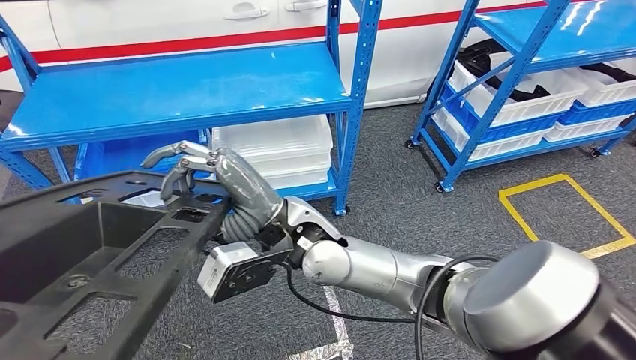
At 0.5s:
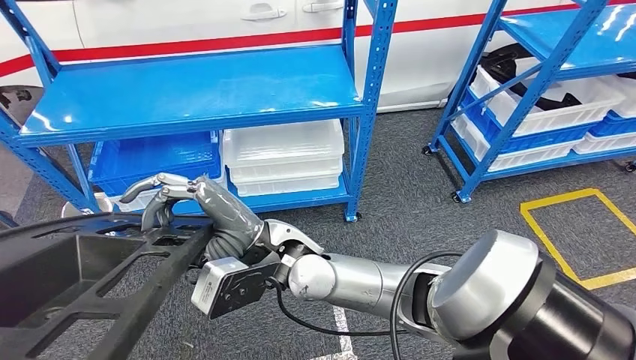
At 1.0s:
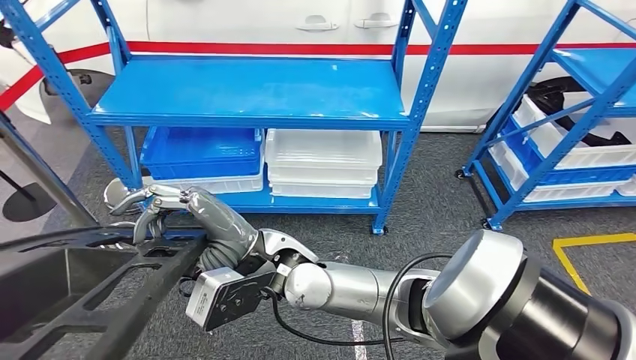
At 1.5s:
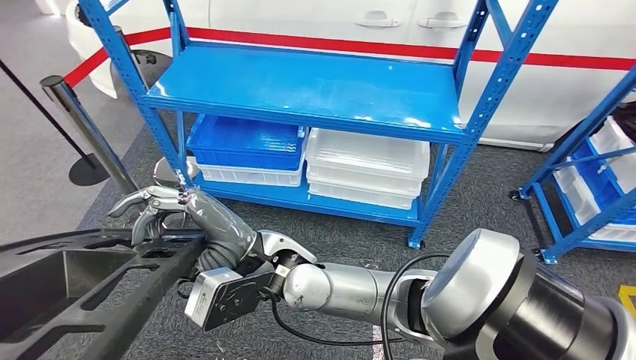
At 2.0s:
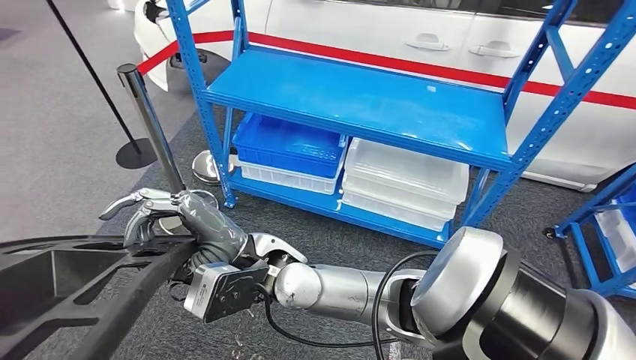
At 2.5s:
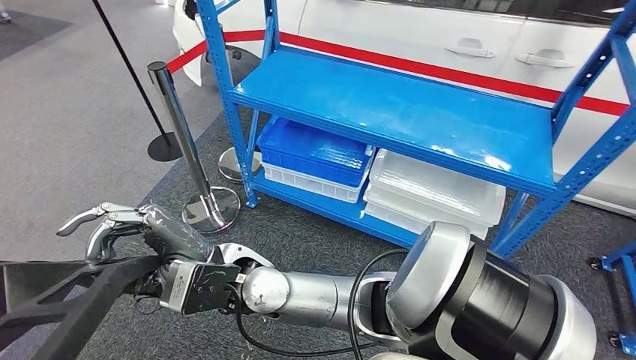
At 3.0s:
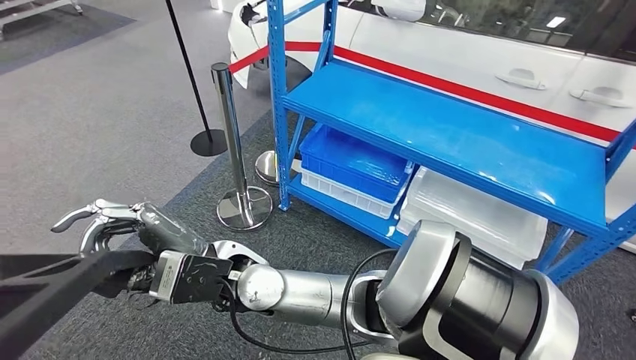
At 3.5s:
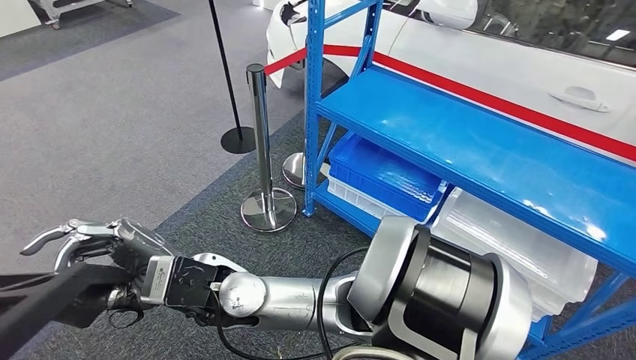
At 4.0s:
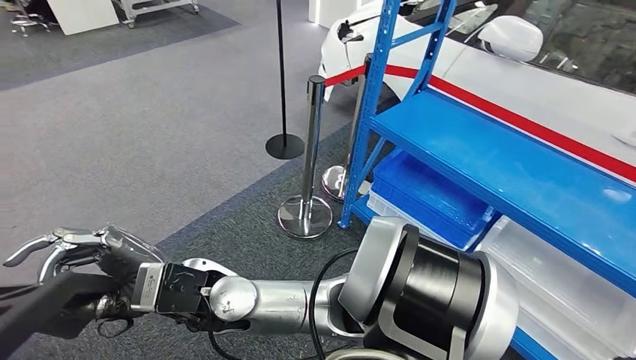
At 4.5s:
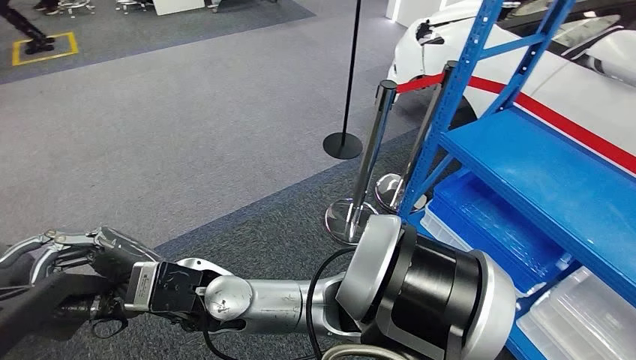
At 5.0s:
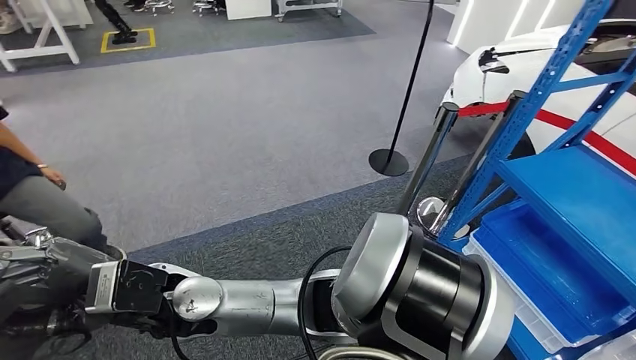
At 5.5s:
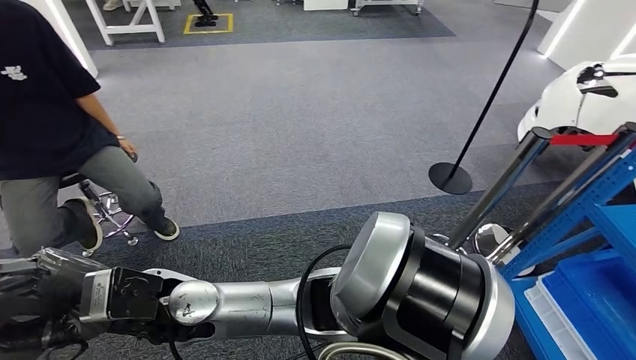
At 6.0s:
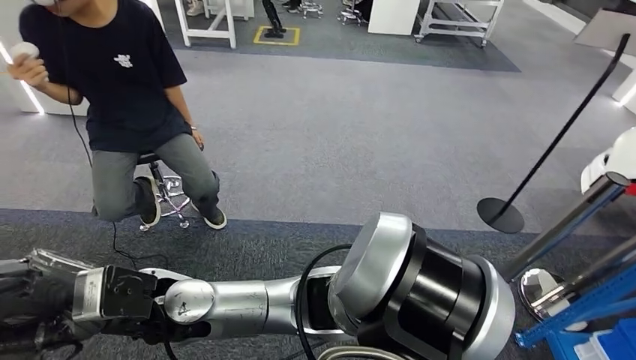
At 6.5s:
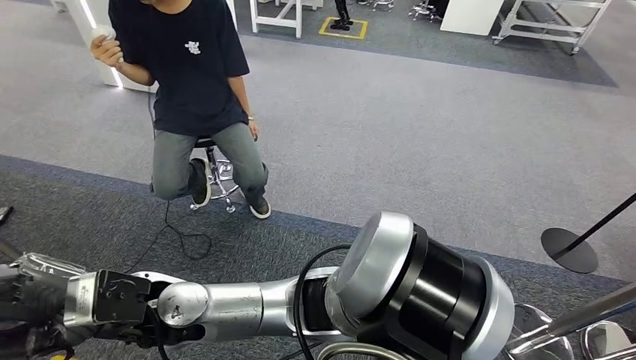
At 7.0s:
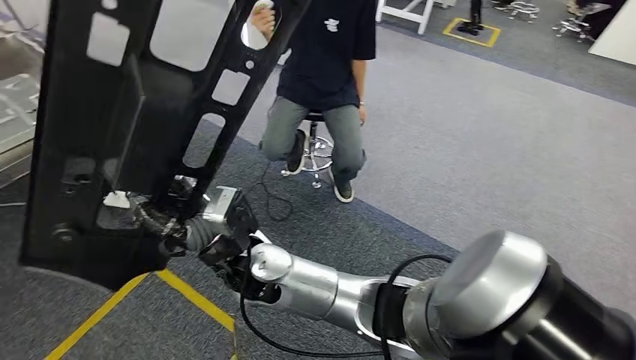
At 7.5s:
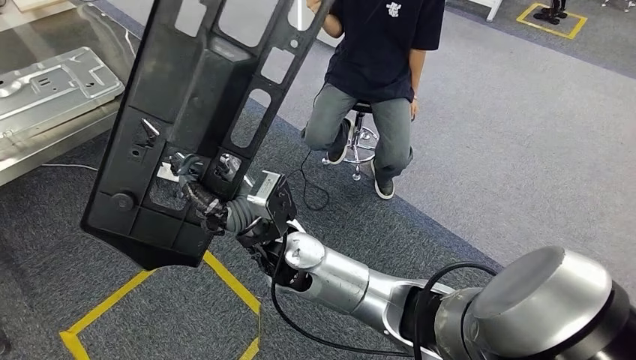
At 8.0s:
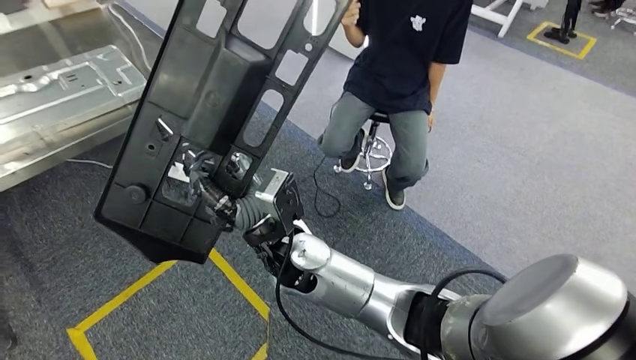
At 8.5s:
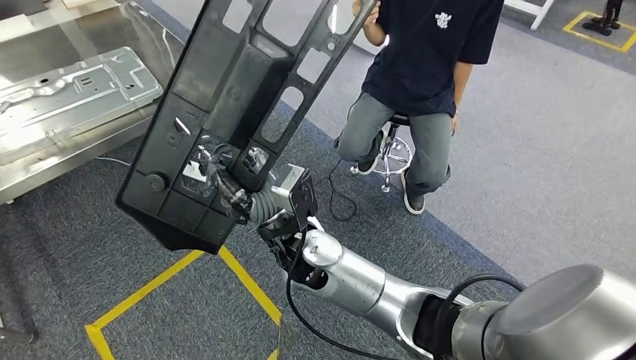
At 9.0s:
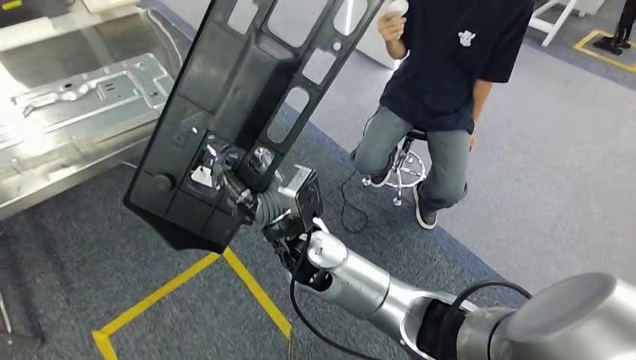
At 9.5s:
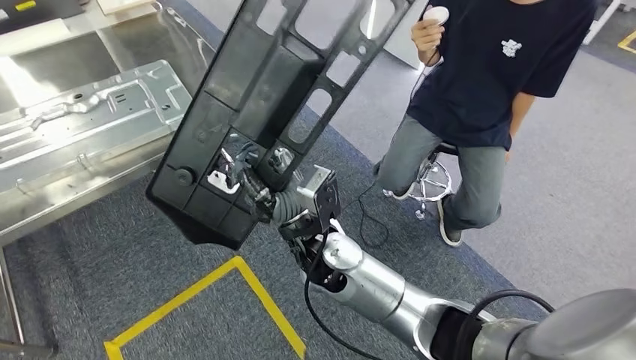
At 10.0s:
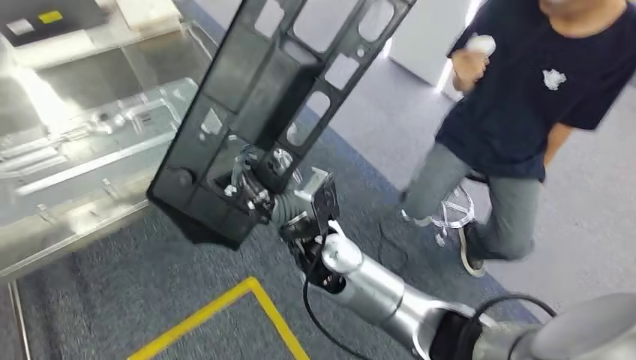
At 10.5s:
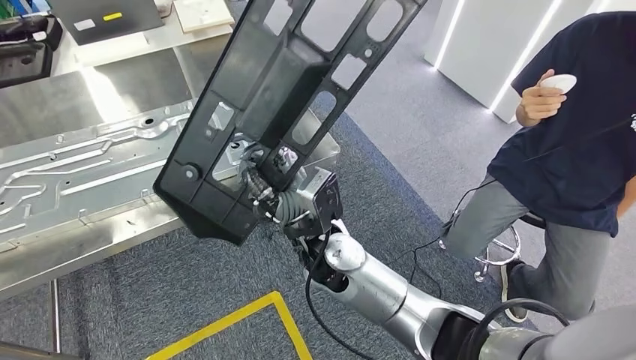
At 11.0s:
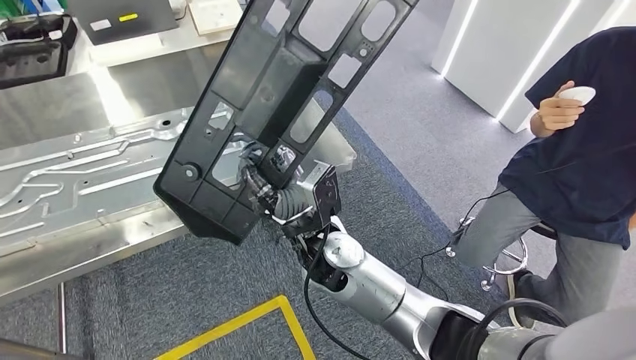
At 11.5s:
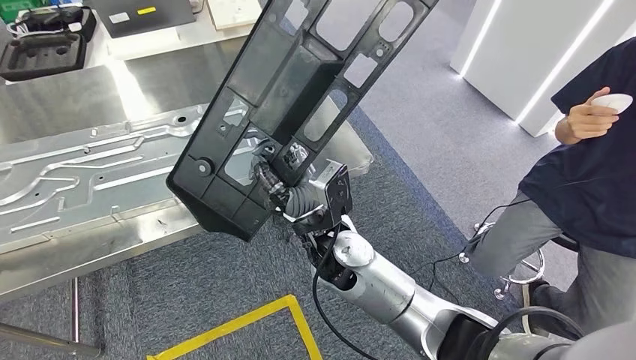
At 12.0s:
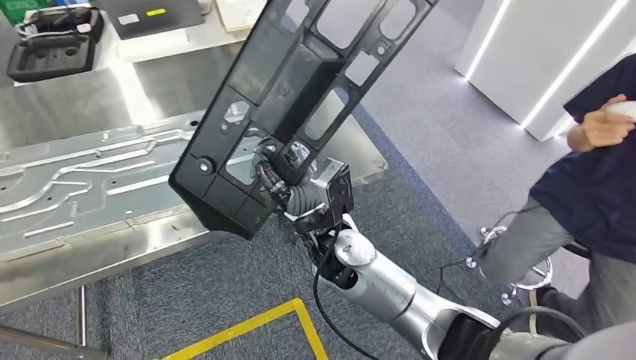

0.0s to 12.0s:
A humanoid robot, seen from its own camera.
Step, 0.0s to 9.5s: Move the large material to the workbench.

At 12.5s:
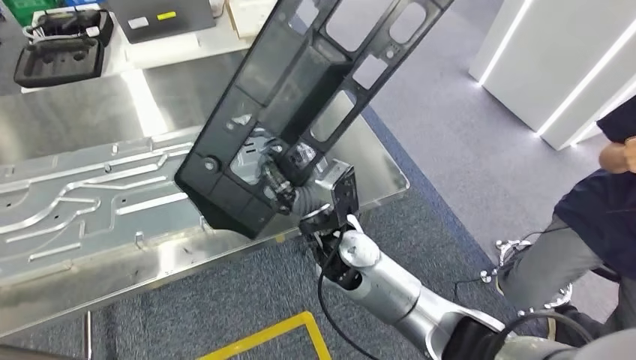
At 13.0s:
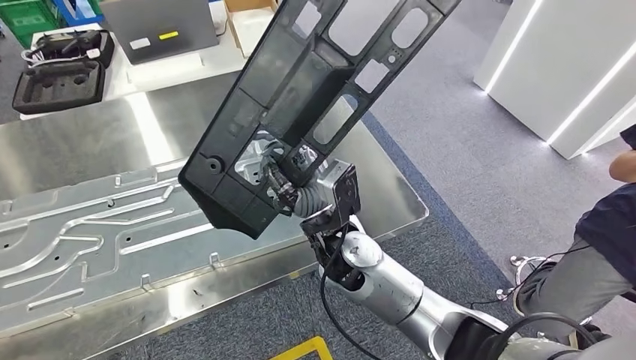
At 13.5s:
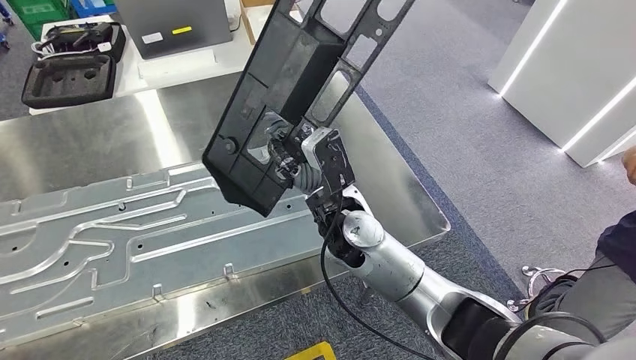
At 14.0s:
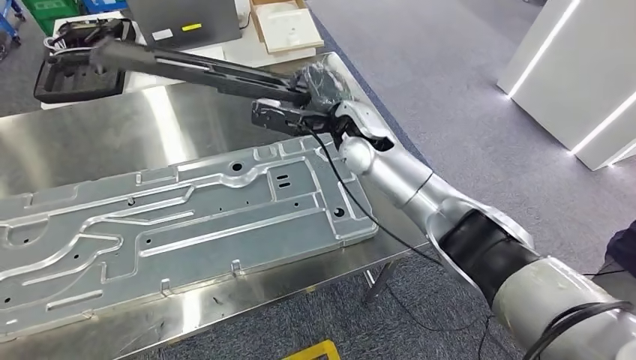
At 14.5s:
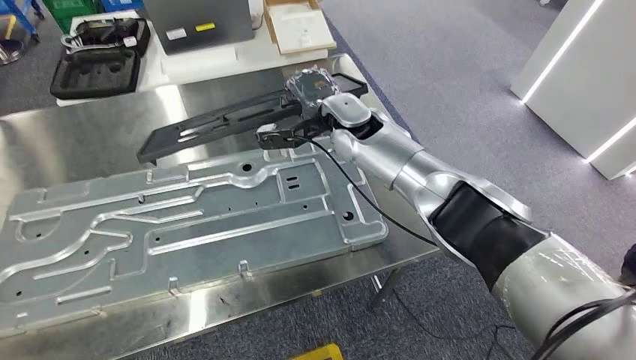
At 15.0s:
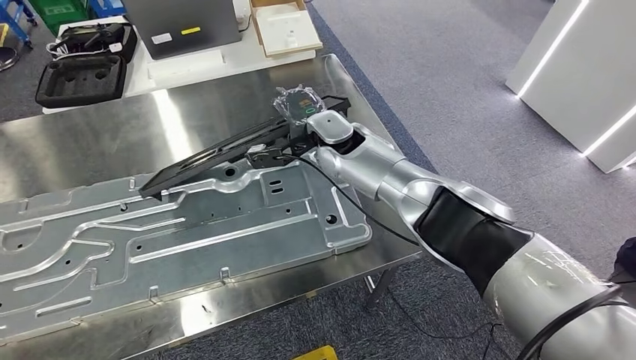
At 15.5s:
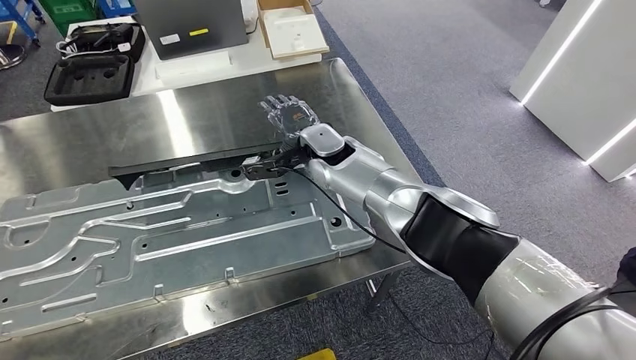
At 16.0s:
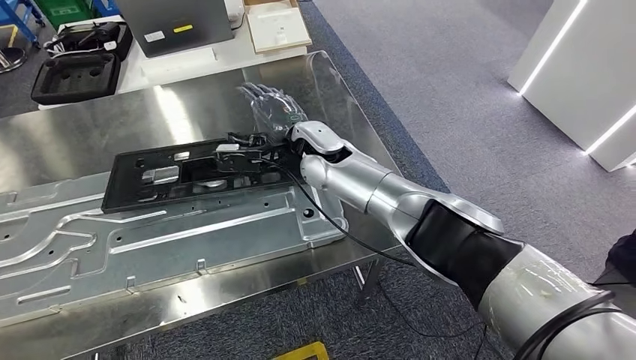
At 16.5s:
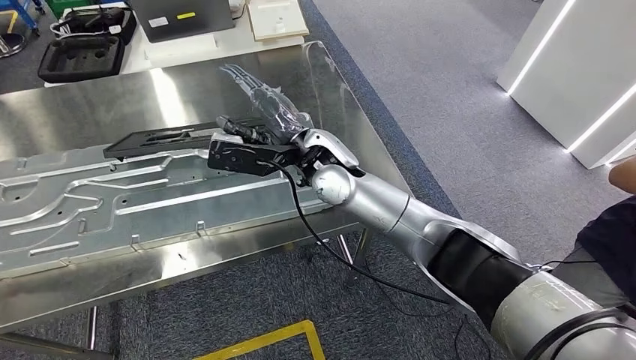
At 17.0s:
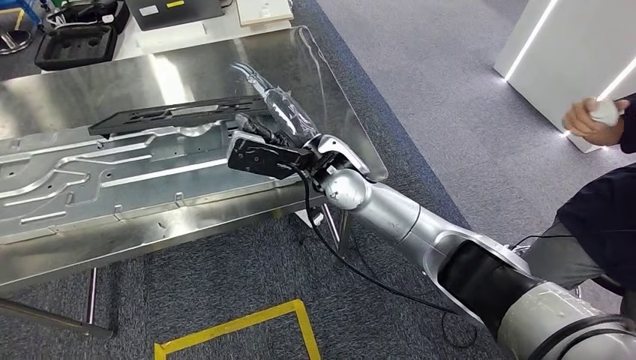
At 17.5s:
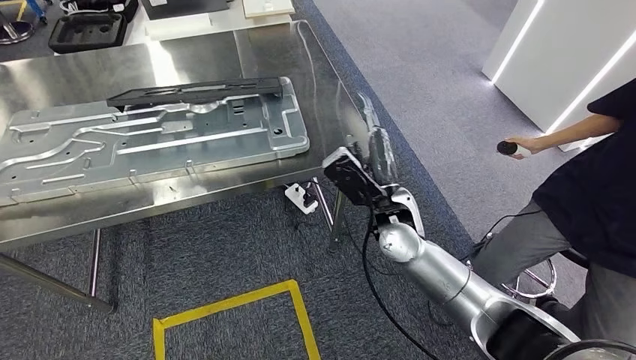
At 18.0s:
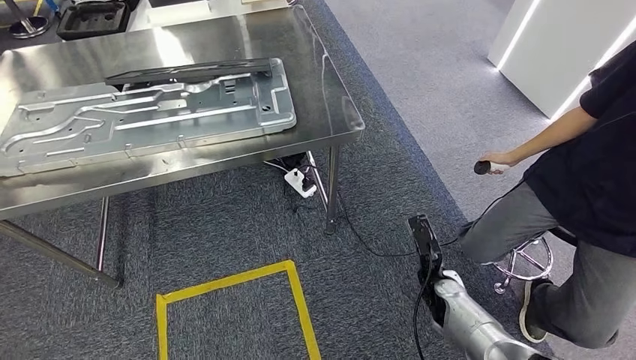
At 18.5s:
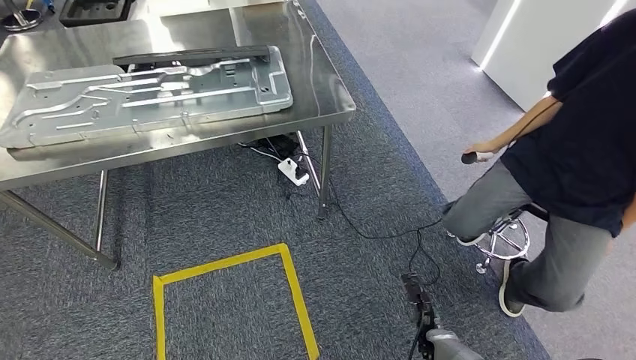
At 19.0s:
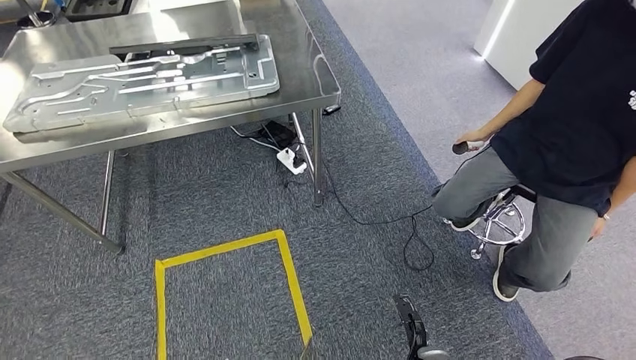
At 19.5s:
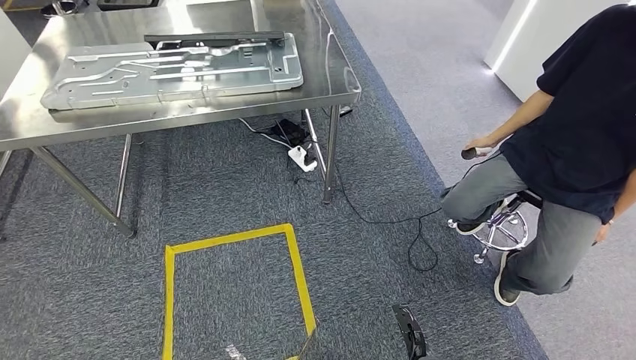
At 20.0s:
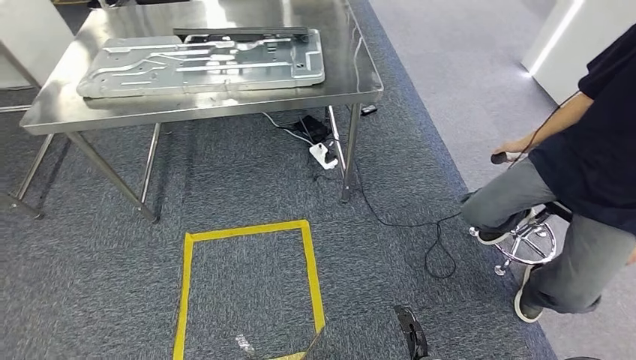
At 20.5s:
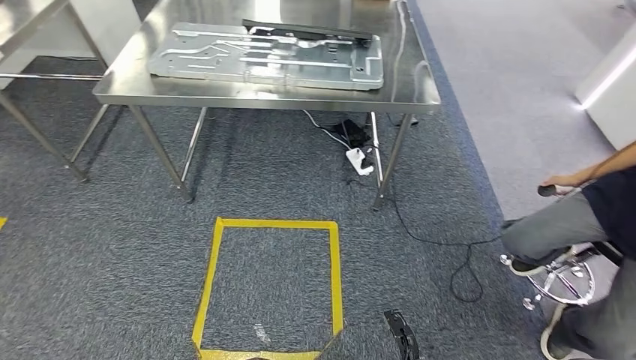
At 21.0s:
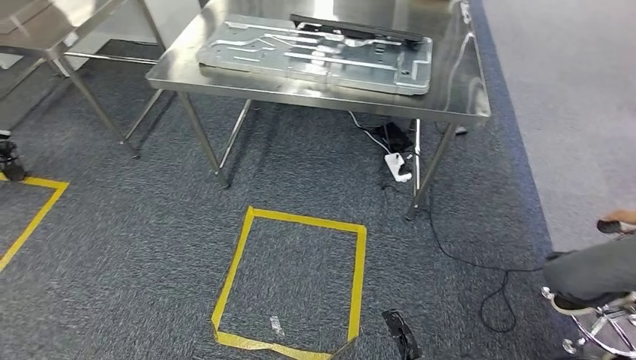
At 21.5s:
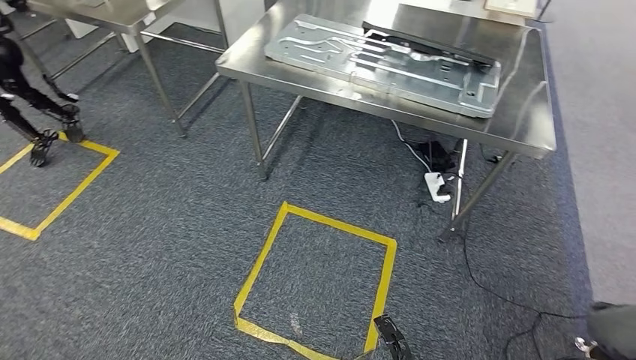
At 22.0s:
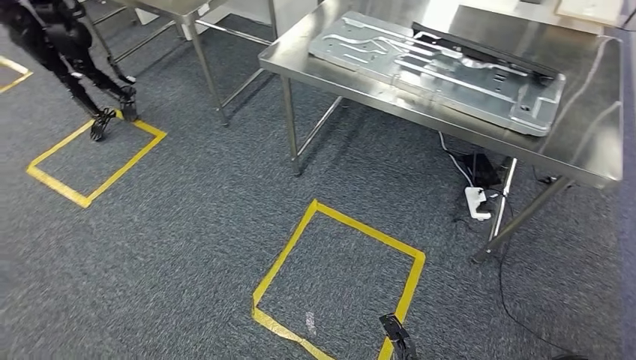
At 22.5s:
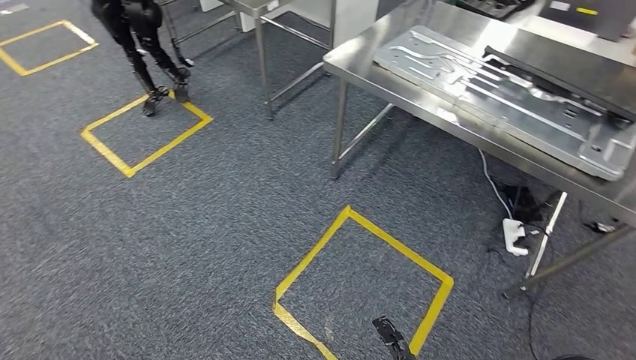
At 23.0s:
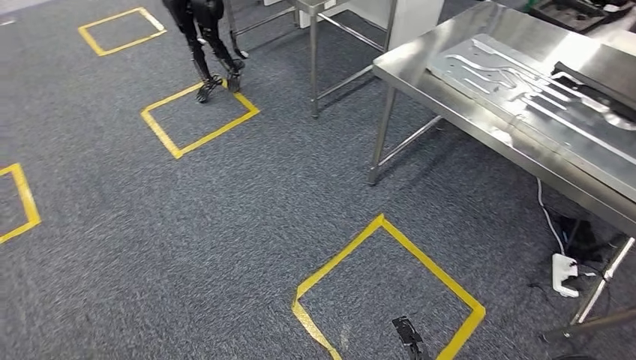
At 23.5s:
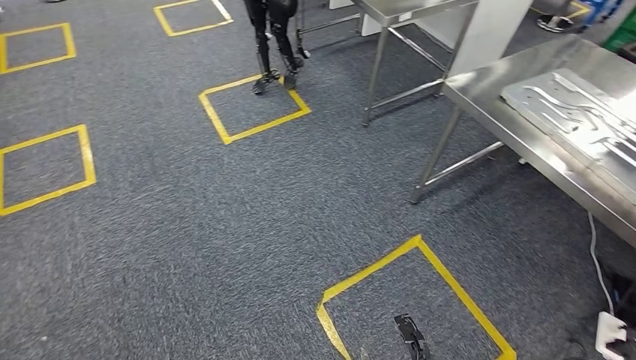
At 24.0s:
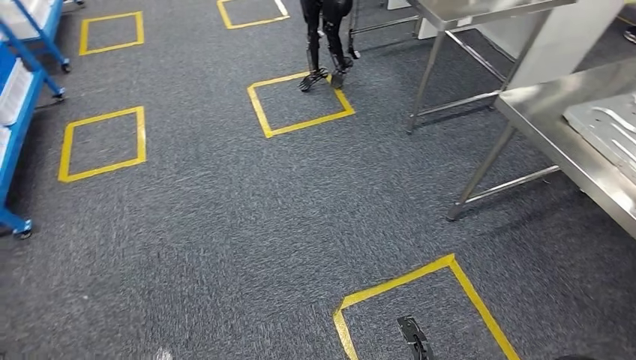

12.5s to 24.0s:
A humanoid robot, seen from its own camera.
Step, 12.5s to 19.5s: Insert the large material into the corresponding slot on the workbench.
